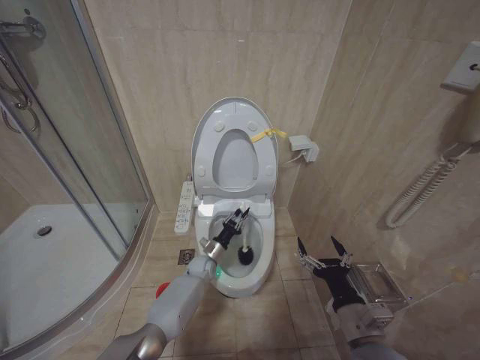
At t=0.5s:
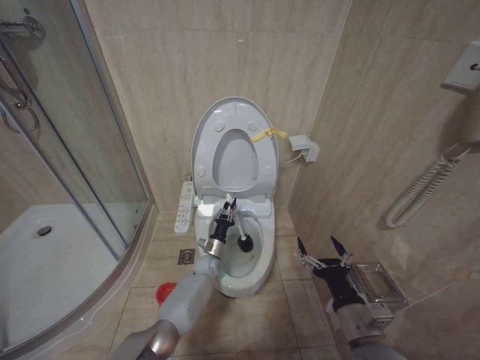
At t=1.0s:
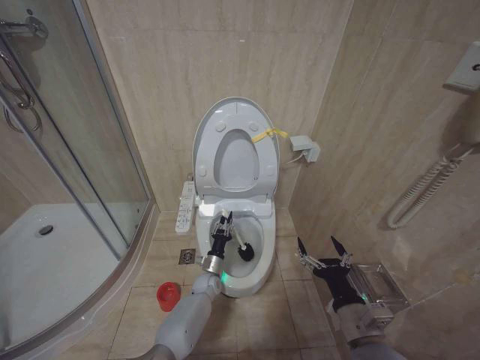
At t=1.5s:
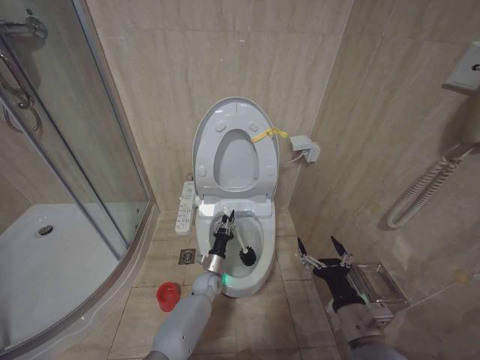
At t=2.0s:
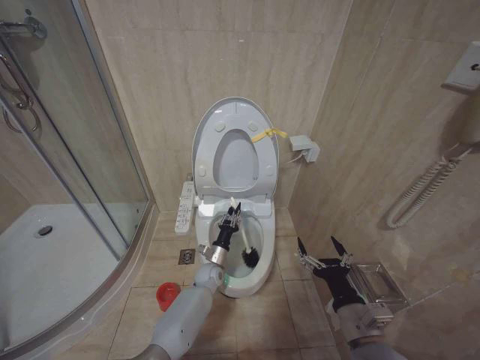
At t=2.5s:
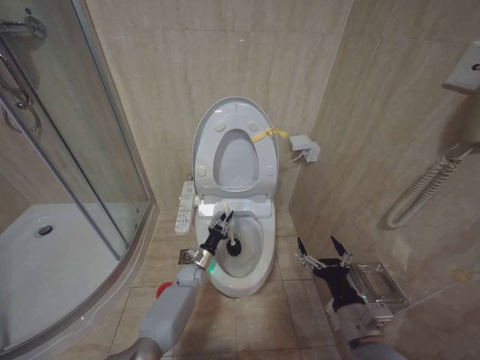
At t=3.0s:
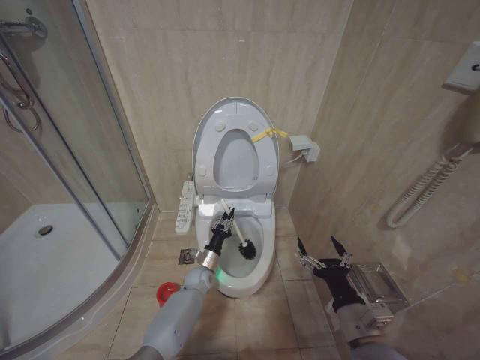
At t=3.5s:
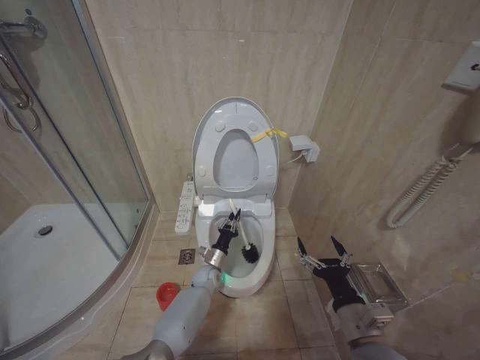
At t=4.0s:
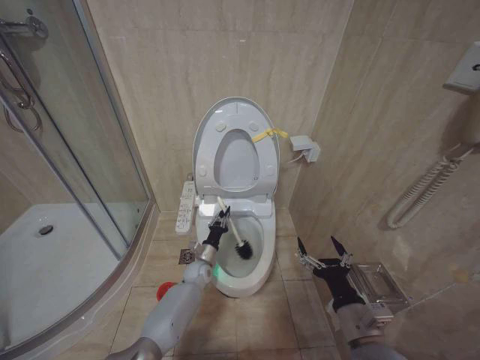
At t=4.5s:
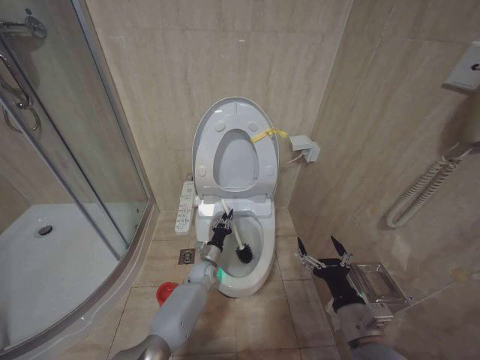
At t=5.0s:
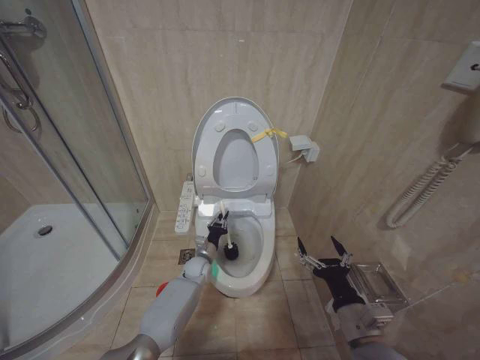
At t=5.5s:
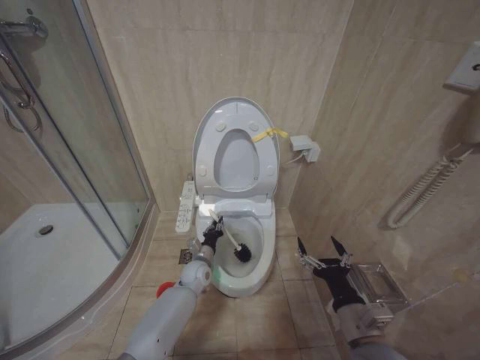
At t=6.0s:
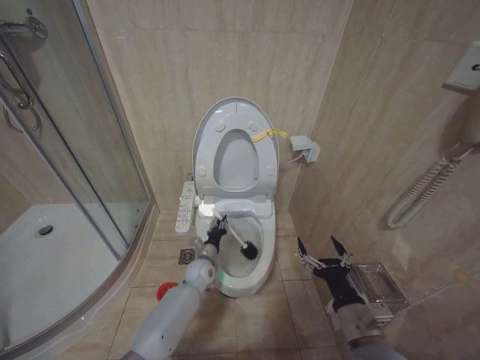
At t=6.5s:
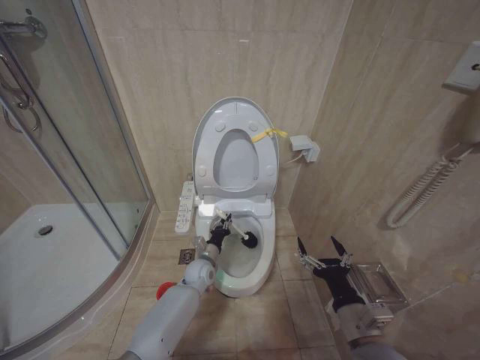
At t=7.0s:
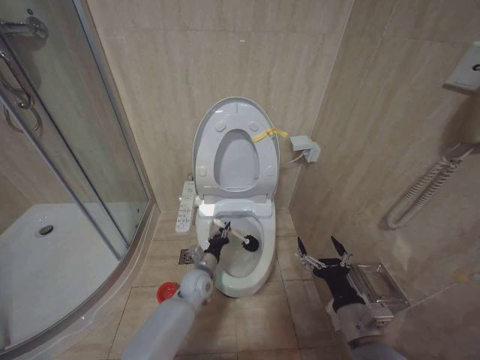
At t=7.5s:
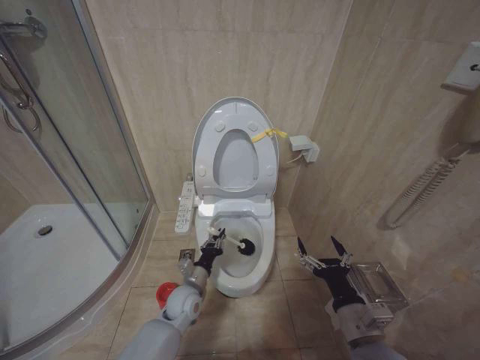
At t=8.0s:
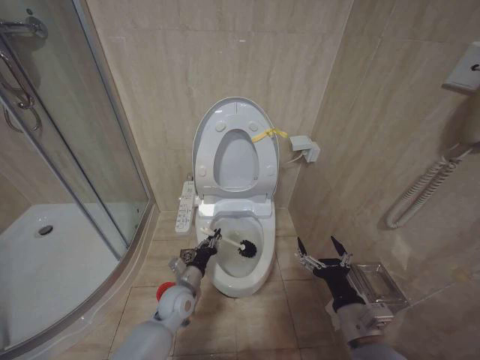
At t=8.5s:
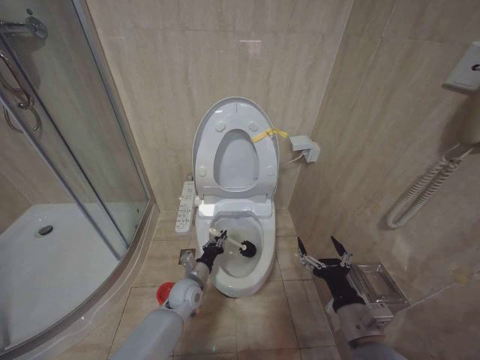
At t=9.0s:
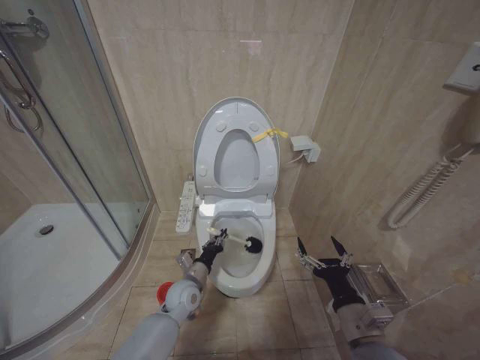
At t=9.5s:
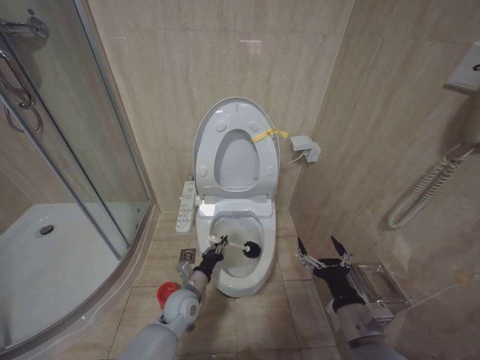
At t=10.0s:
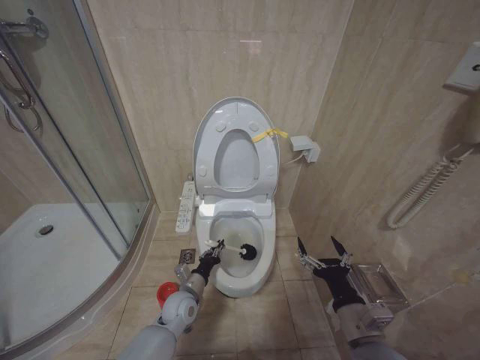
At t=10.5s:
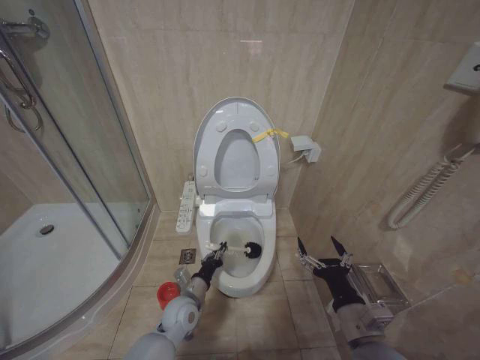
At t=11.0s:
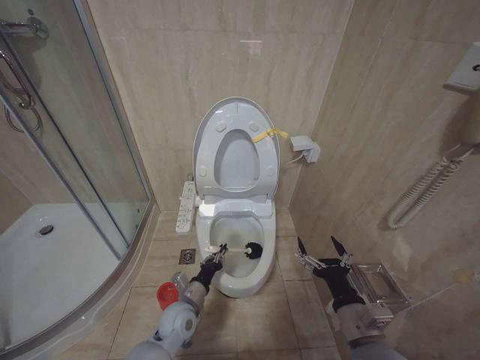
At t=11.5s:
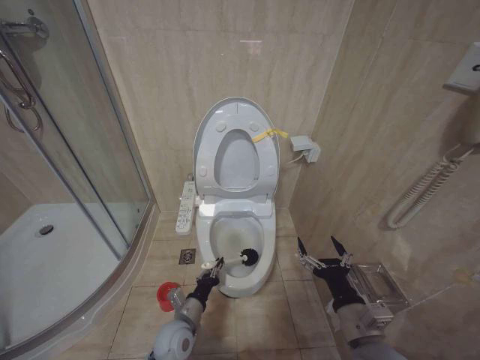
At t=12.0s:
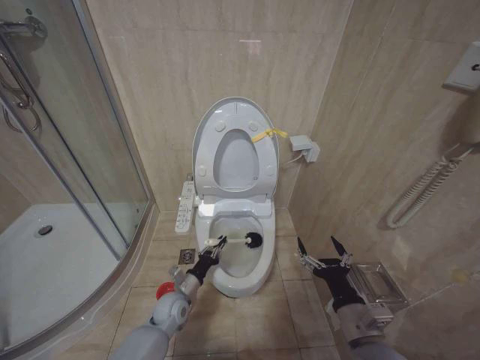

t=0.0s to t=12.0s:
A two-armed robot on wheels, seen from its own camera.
Task of the whole recording: Open the toilet lid, clean the toilet bowl with a toilet brush, close the toilet lid, and flush.
t=2.0s to t=4.0s: The left gripper goes left and right, some 5 cm each way, reversing 2 times.
t=4.0s to t=6.0s: The left gripper travels upward by some 5 cm.
t=6.0s to t=8.0s: The left gripper is displaced backward and to the left by roughly 10 cm.
t=8.0s to t=10.0s: The grippers make only small movements.
t=10.0s to t=12.0s: The left gripper goes backward and returns, about 5 cm each way.

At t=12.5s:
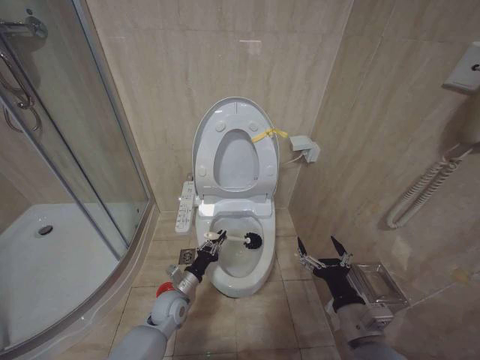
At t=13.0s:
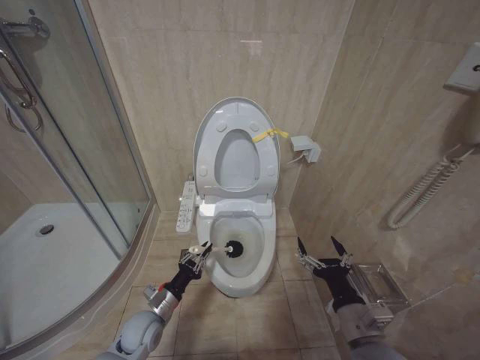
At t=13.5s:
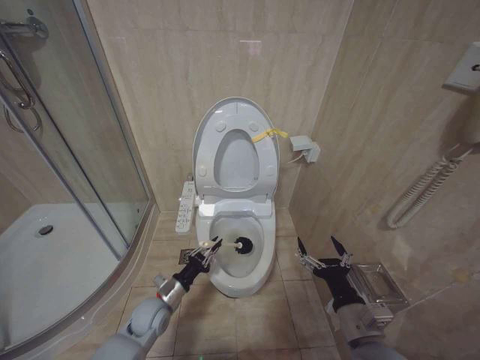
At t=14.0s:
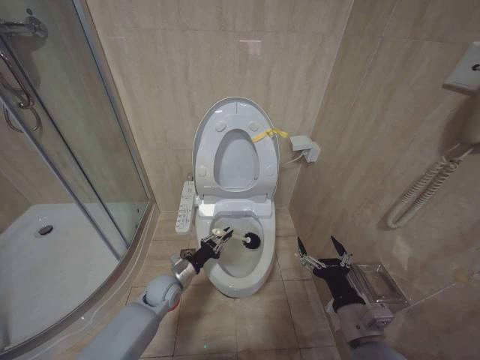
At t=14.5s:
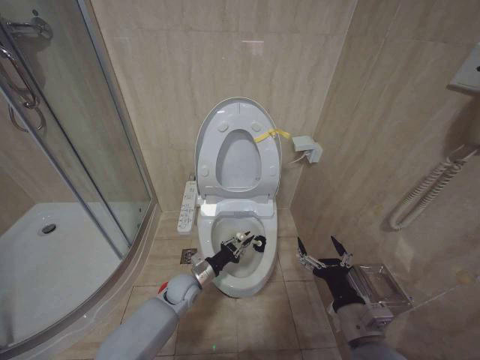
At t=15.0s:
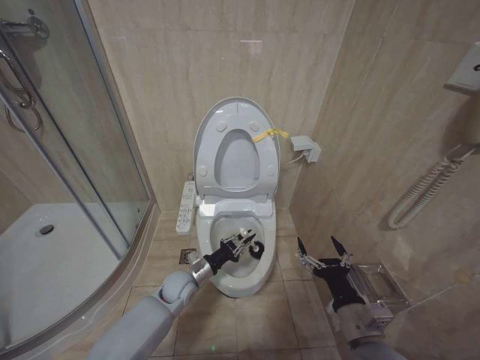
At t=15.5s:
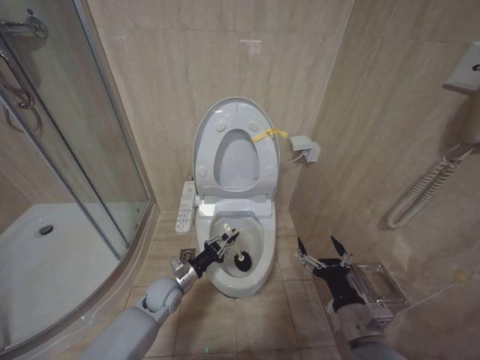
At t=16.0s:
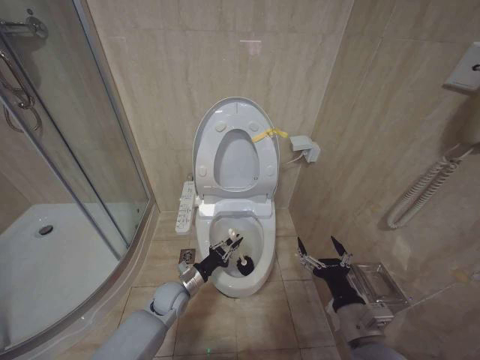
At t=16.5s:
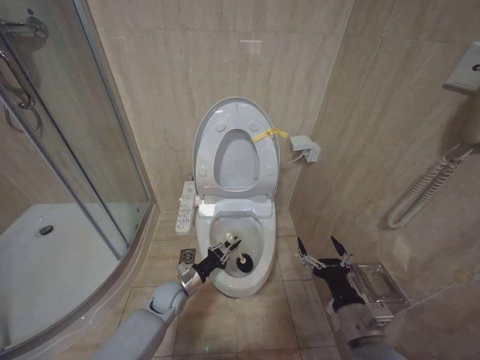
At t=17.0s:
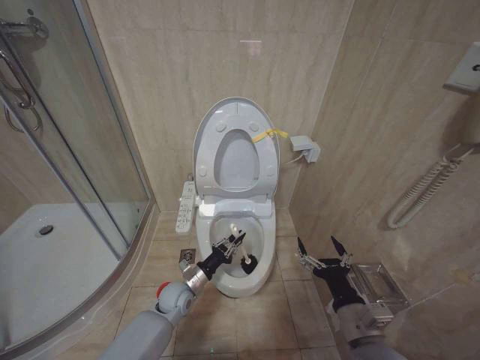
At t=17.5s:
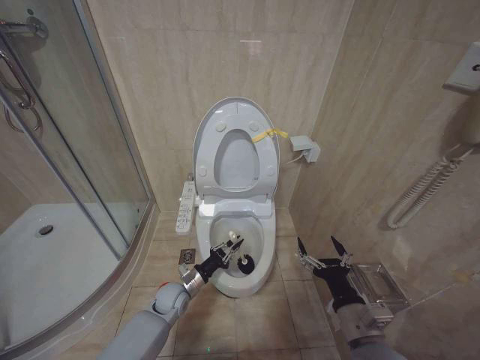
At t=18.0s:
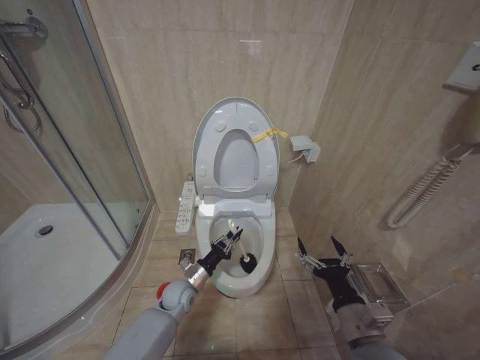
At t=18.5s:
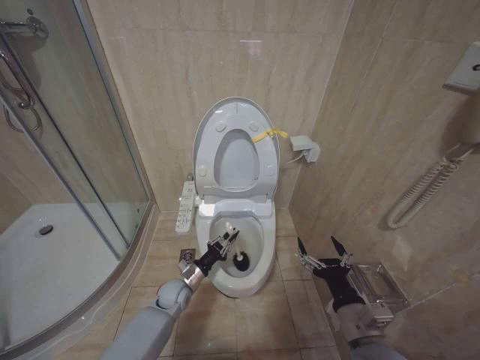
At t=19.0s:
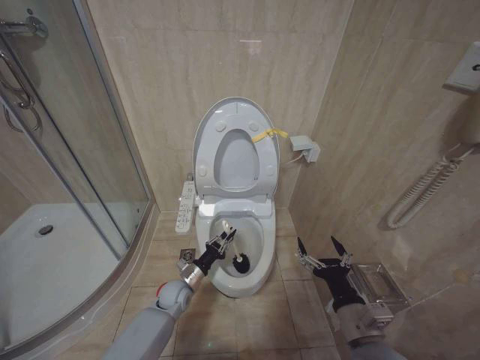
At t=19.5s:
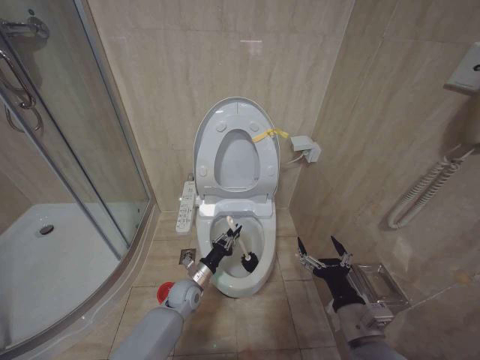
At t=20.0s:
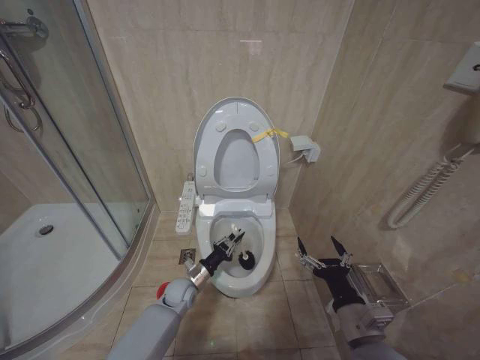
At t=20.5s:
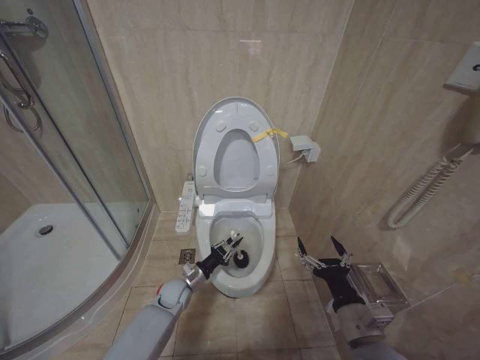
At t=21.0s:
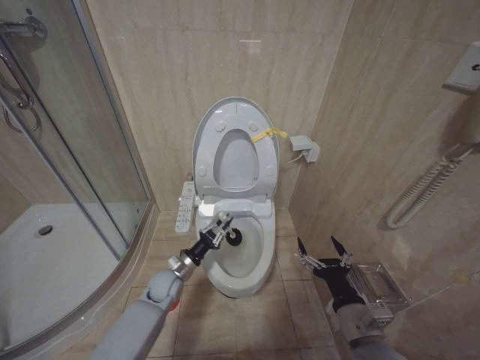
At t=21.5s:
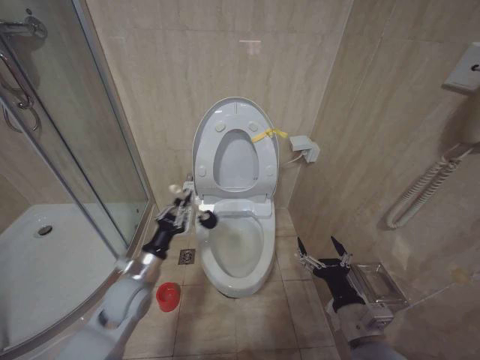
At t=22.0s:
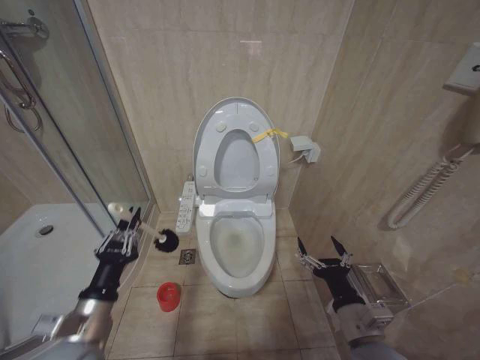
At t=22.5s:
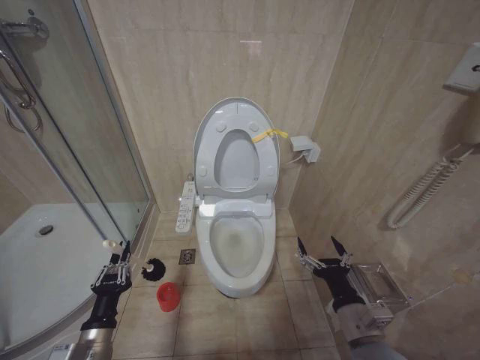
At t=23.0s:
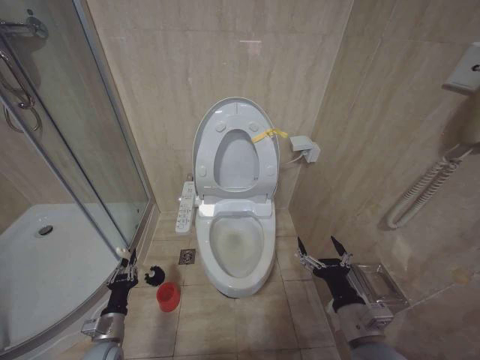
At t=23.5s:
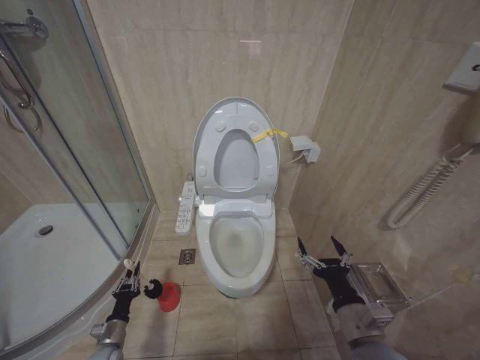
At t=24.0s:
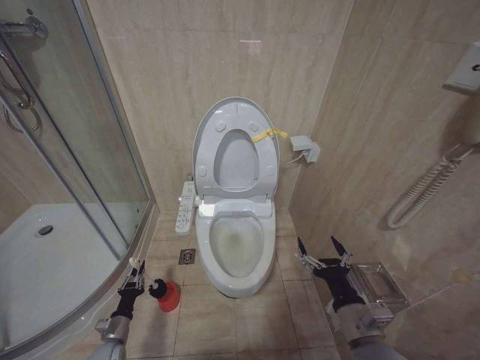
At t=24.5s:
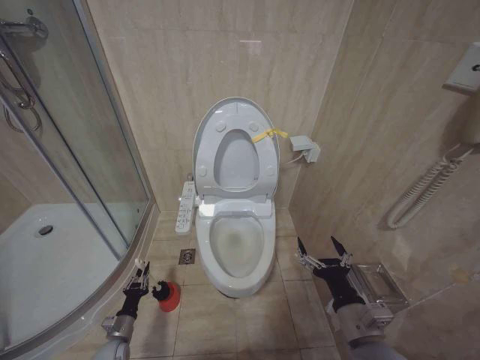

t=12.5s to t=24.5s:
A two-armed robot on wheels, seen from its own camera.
Task of the whole recording: Open the toilet lid, clean the toilet bowl with a toilet brush, close the toilet lid, and flush.
t=14.5s to t=18.5s: The grippers move only a little.
t=20.5s to t=22.5s: The left gripper shifts some 30 cm backward, upward and to the left.
t=22.5s to t=24.5s: The left gripper travels downward and forward by some 25 cm.

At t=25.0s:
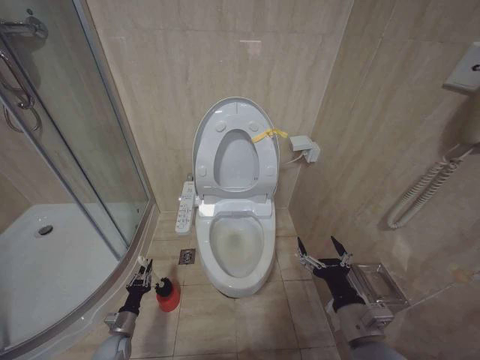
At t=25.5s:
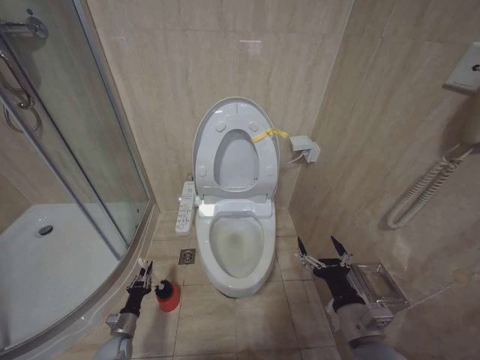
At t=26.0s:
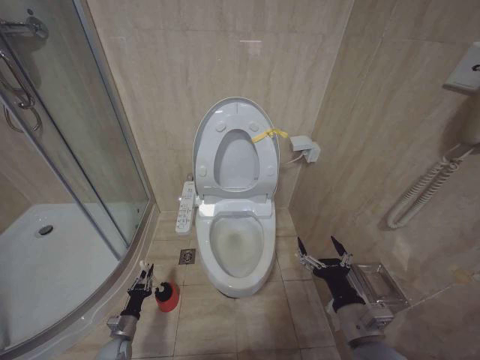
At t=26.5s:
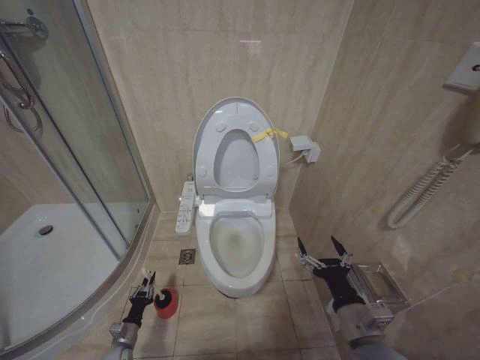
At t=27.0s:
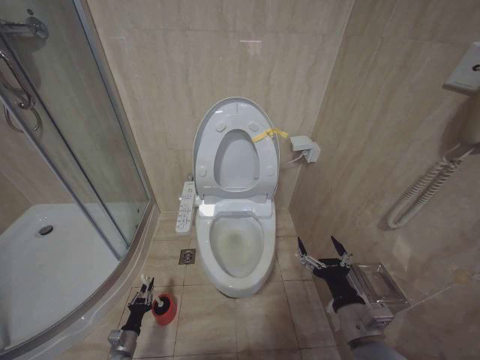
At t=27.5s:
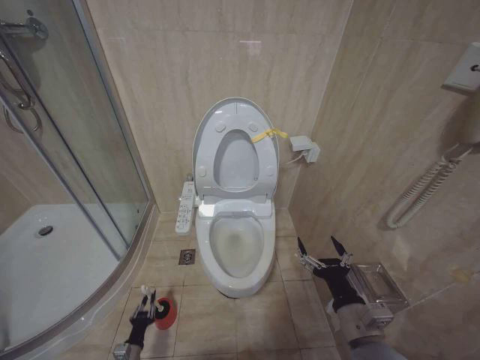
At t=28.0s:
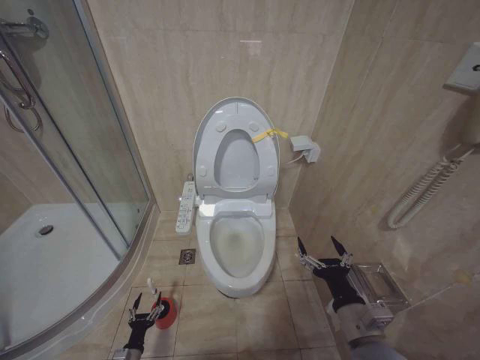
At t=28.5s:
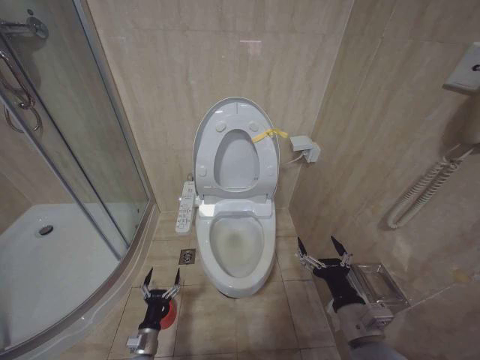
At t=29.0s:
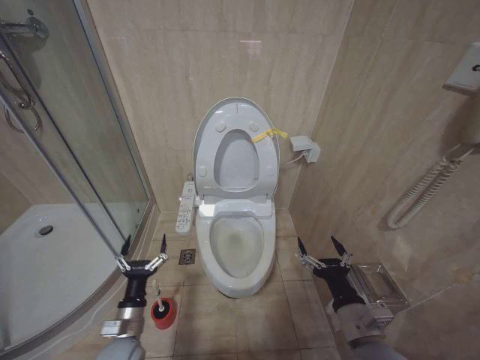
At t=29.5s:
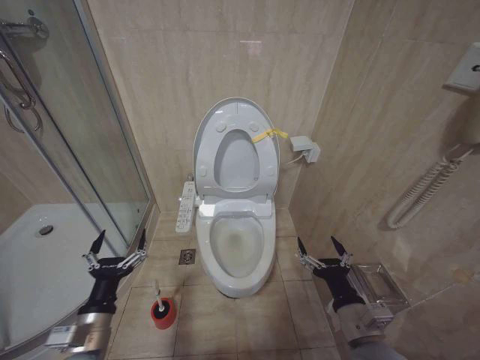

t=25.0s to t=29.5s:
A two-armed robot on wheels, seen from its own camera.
Task of the whole recording: Open the toilet lid, clean the toilet bowl with a toilet brush, close the toilet lid, and flush.
t=25.0s to t=27.0s: The left gripper moves about 5 cm.
t=27.0s to t=29.5s: The left gripper goes approximately 35 cm upward, and opens up.
